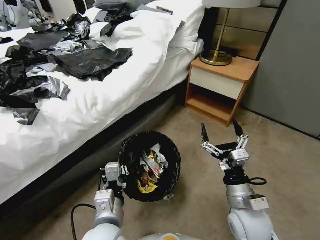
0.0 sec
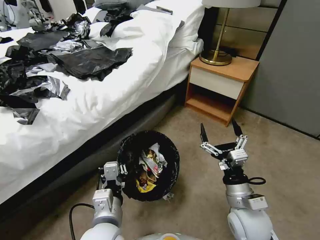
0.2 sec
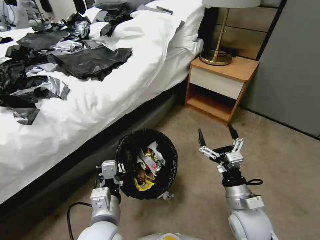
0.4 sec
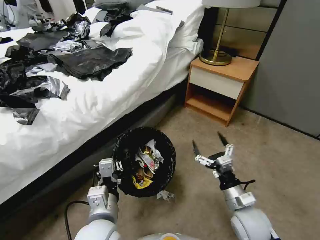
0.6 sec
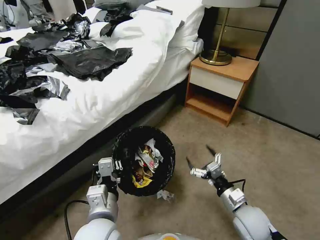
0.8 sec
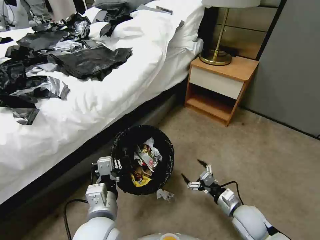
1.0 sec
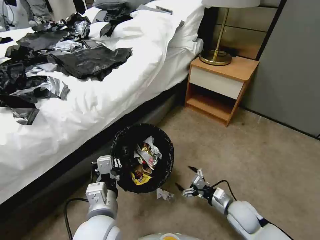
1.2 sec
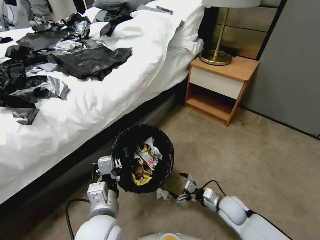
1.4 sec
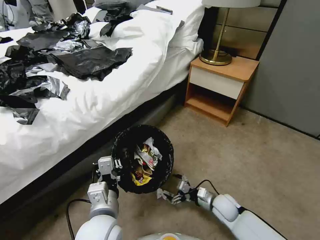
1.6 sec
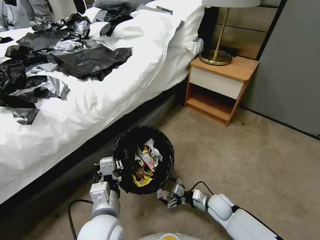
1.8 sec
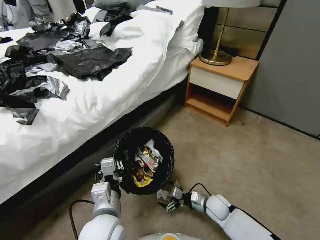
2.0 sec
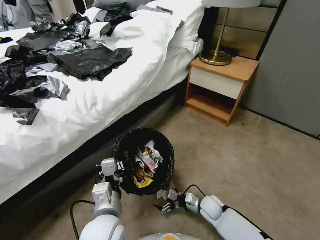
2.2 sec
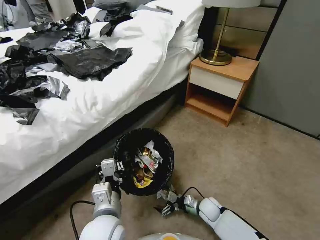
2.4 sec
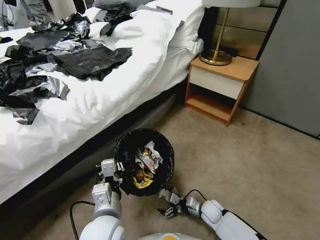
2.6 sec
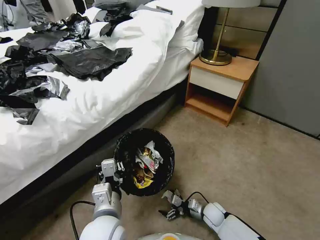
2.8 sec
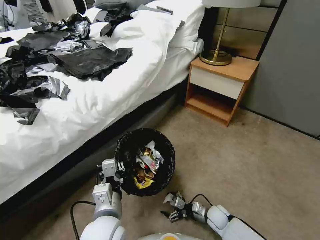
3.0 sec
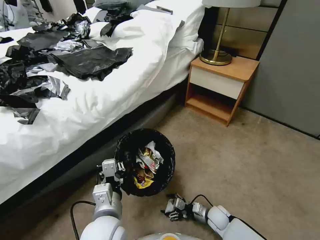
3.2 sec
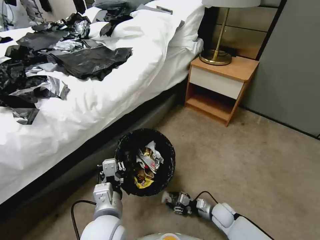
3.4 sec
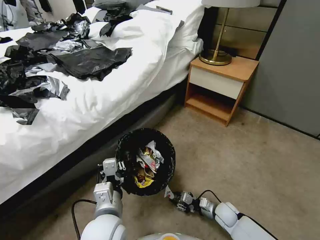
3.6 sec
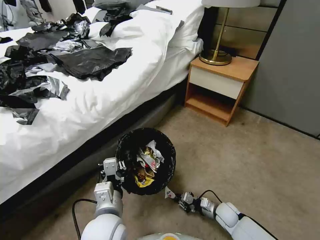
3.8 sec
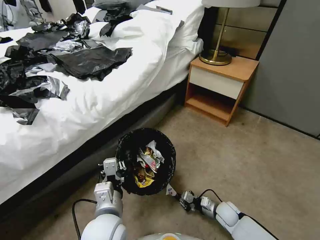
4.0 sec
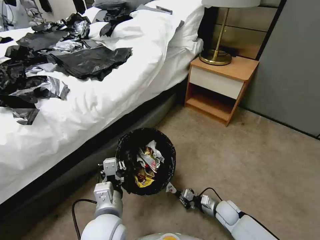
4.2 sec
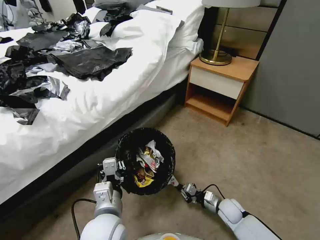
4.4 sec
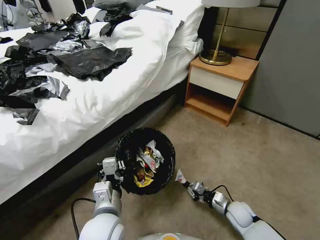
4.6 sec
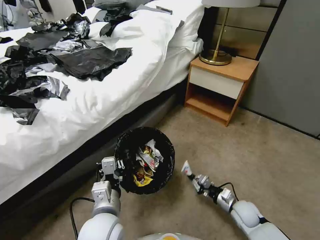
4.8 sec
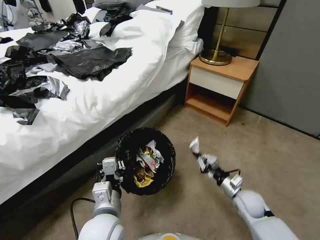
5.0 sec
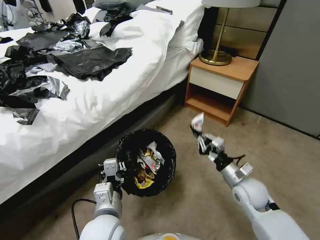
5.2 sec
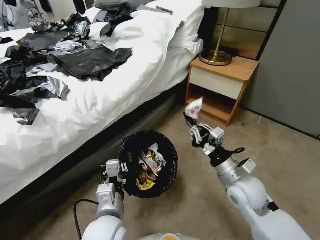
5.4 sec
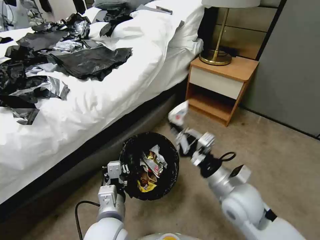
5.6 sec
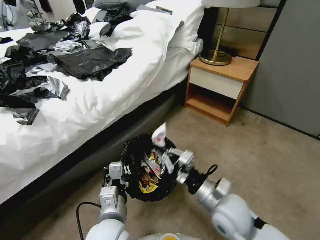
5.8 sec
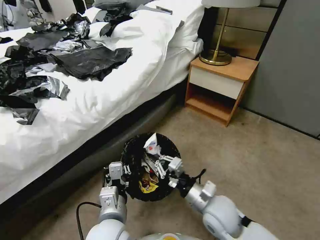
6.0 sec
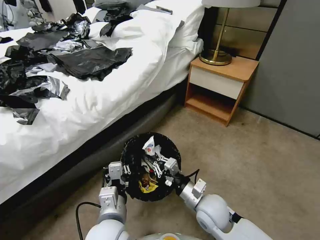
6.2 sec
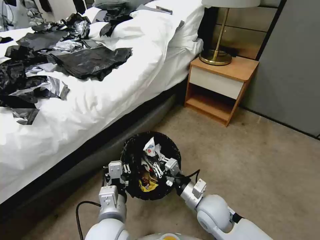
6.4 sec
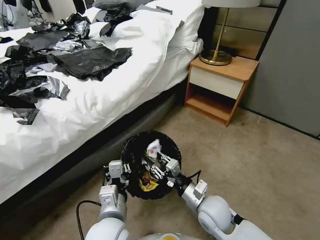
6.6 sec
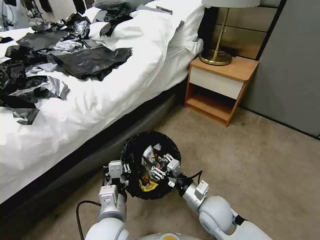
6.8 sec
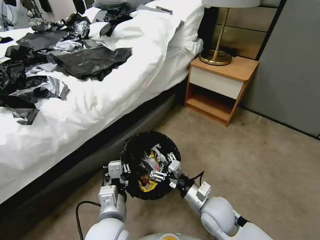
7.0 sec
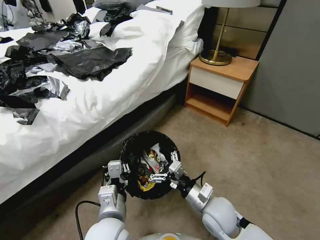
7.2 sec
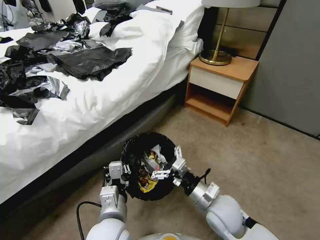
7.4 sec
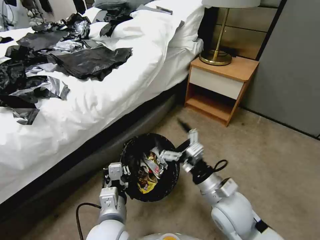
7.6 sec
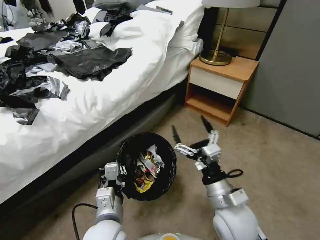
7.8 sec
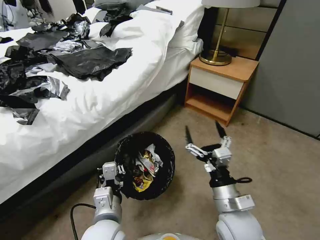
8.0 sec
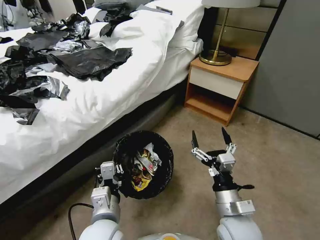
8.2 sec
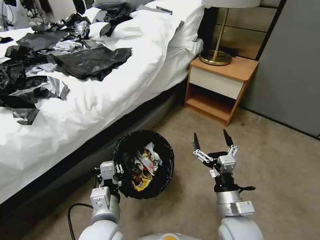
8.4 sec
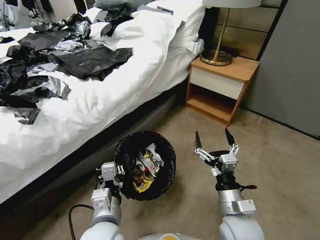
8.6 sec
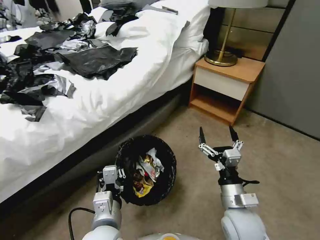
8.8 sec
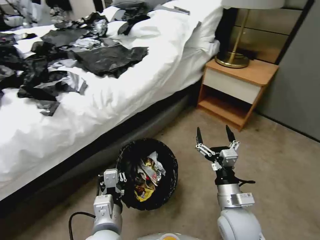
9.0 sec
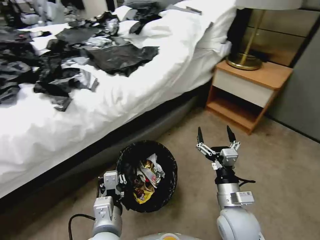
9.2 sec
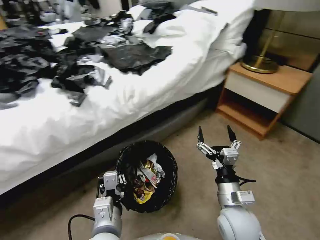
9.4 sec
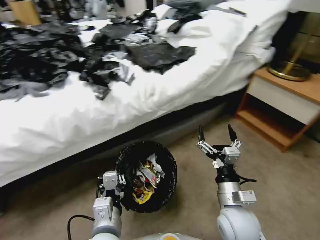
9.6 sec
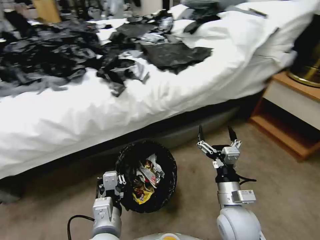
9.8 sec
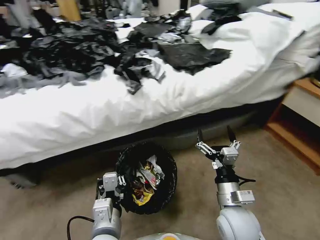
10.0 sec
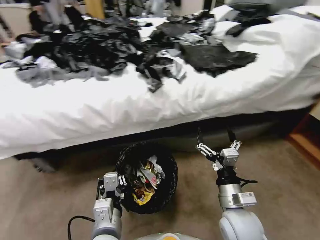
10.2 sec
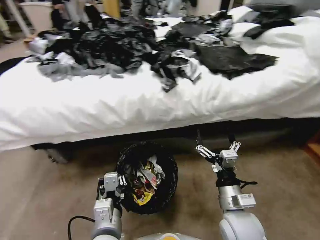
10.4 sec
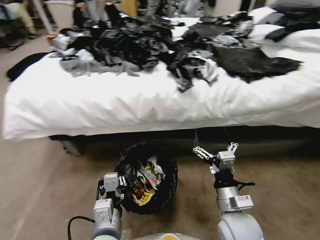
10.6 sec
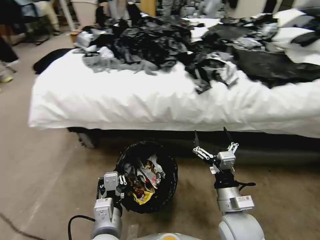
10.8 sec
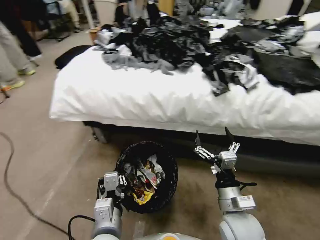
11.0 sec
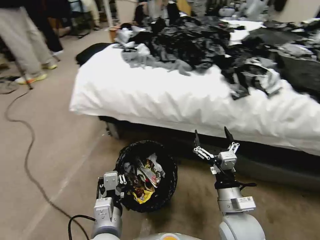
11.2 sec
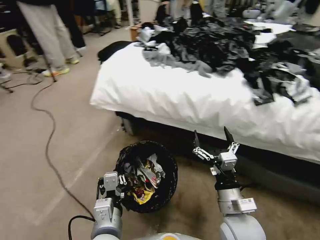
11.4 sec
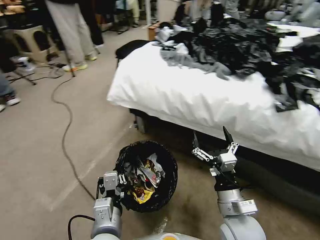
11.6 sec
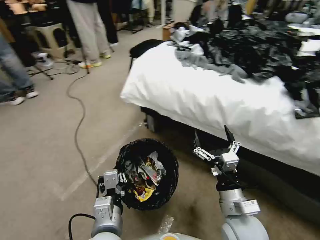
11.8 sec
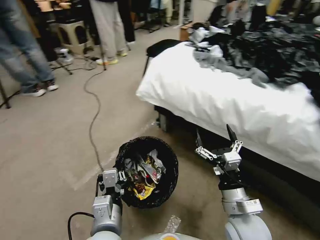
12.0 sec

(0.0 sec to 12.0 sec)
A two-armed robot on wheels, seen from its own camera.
Task of the whole recording: Pick up the trash bin, then pick up the garbage from the floor and place it into the trash bin.
0.0 sec - 1.6 sec: The right gripper shifts roughly 20 cm downward and forward.
1.6 sec - 3.0 sec: The right gripper goes some 10 cm downward.
3.0 sec - 4.4 sec: The right gripper ends up roughly 5 cm from where it was, and closes up.
4.4 sec - 6.0 sec: The right gripper moves upward and to the left, roughly 25 cm.
6.0 sec - 7.6 sec: The right gripper goes some 5 cm upward, and opens up.
7.6 sec - 9.0 sec: The right gripper ends up roughly 5 cm from where it was.

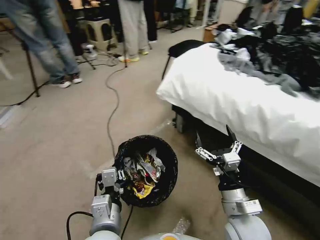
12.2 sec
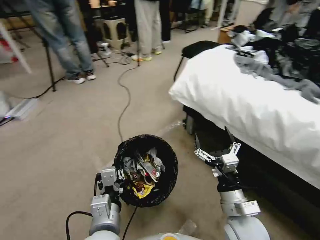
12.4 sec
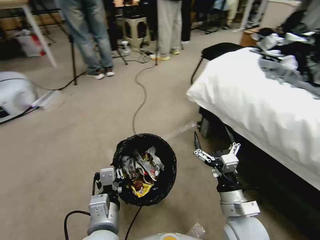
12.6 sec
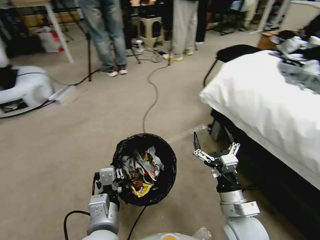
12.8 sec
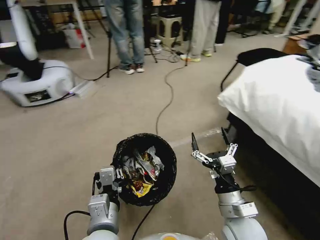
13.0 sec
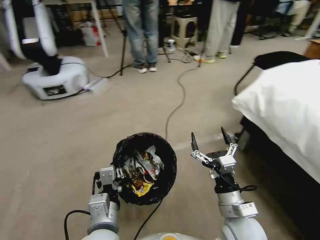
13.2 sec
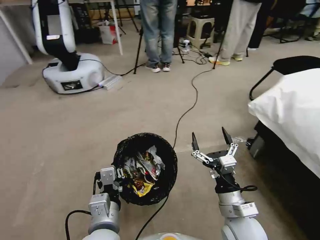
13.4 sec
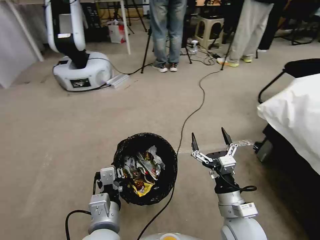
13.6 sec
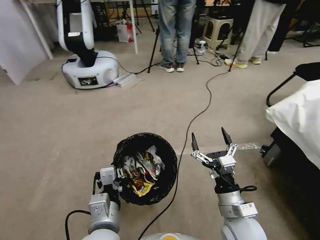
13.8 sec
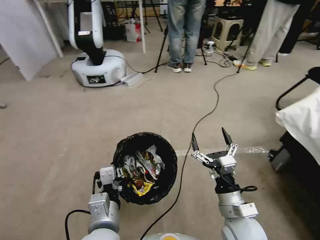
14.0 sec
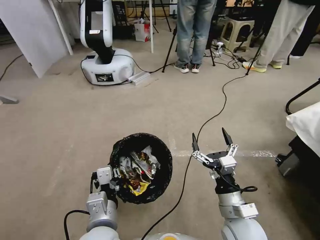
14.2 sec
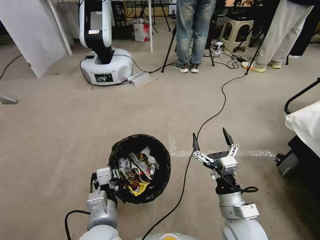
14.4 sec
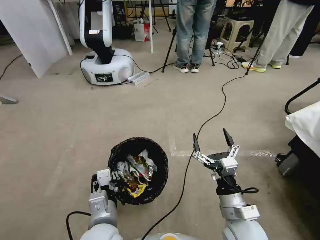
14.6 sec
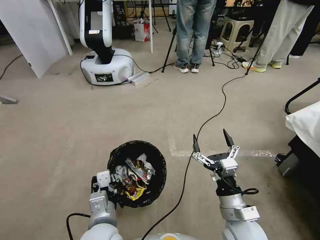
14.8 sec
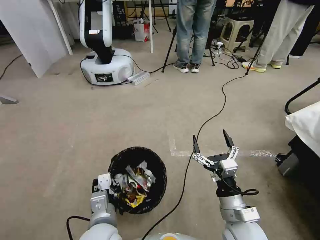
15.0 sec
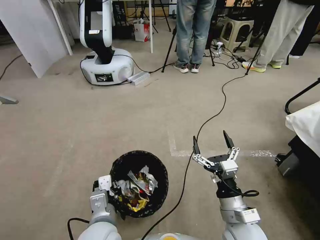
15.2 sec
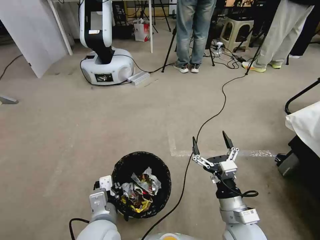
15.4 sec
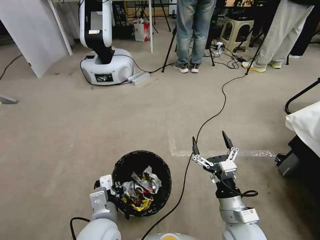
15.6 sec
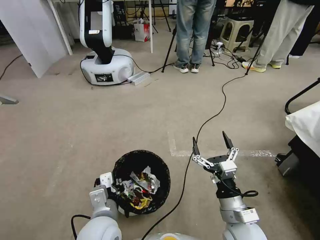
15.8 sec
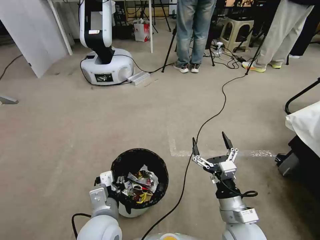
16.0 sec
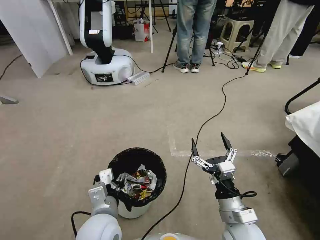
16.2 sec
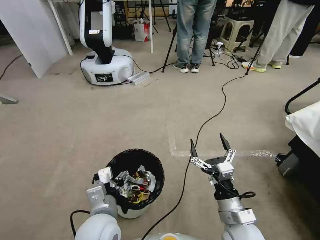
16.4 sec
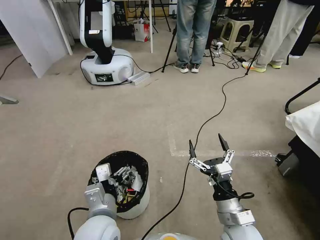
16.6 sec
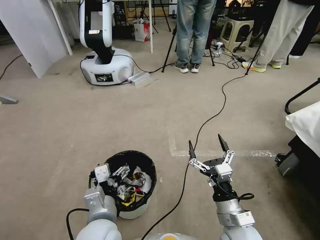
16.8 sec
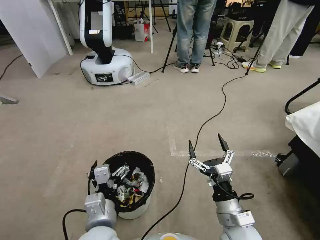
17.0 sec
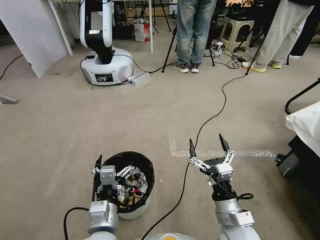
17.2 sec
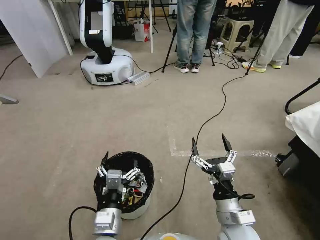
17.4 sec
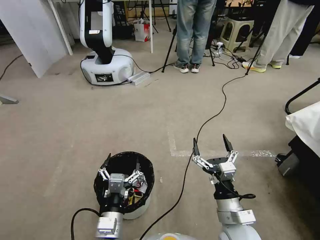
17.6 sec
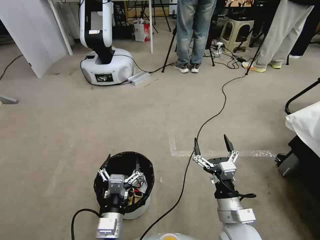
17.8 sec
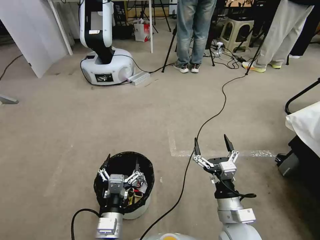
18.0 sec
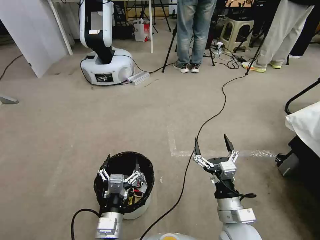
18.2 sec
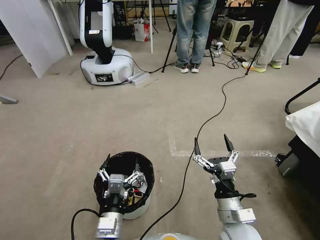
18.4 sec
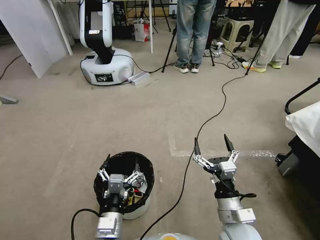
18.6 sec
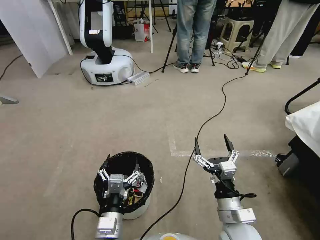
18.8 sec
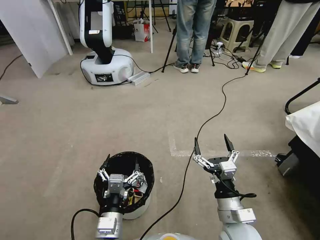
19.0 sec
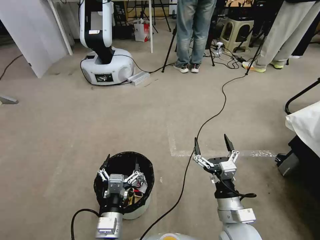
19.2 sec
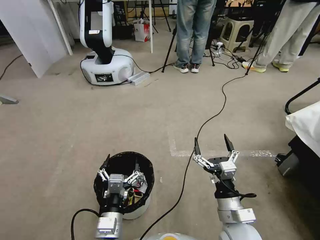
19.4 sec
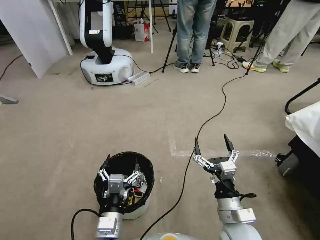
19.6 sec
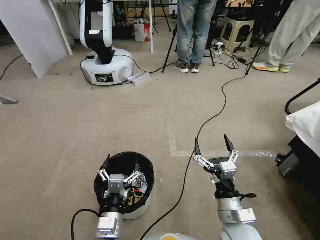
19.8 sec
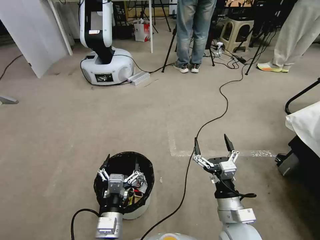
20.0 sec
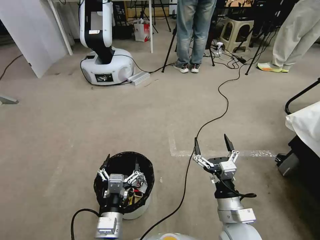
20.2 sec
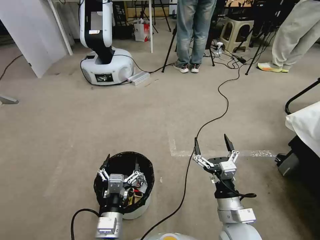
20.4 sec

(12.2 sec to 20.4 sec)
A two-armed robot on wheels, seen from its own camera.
Task of the whole recording: Pick up the trash bin, then pick up the garbage from the floor and place it into the trash bin.
15.4 sec - 17.2 sec: The left gripper opens up.
17.2 sec - 18.8 sec: The grippers move only a little.
18.8 sec - 20.4 sec: Both grippers stay about where they are.

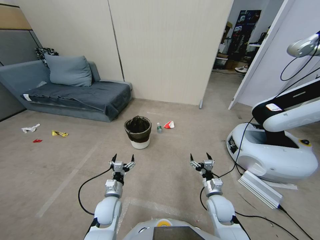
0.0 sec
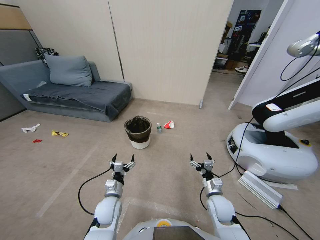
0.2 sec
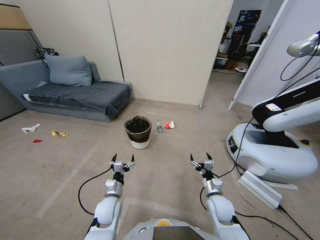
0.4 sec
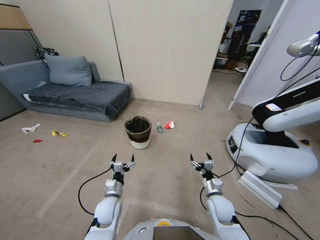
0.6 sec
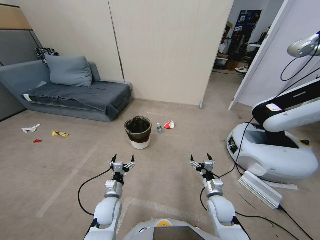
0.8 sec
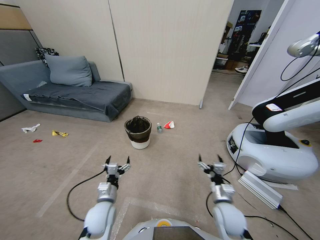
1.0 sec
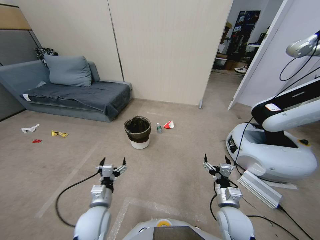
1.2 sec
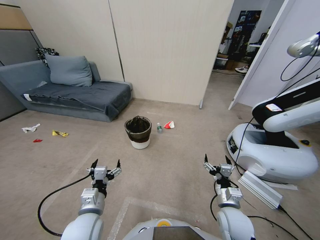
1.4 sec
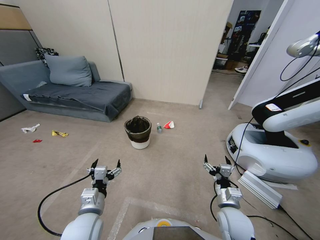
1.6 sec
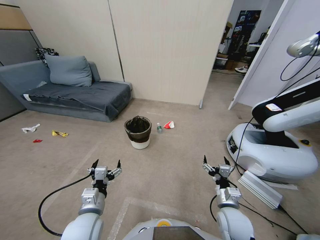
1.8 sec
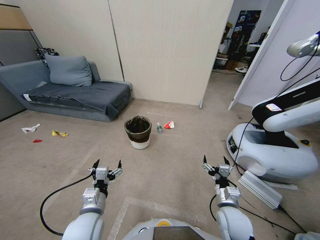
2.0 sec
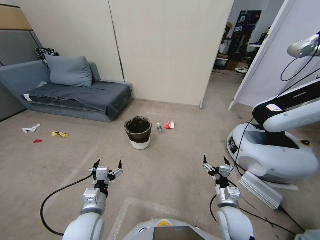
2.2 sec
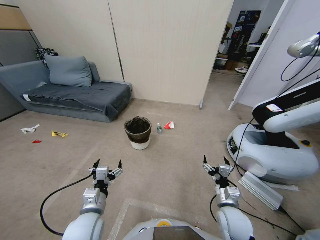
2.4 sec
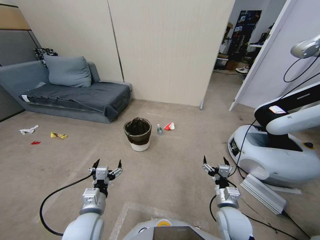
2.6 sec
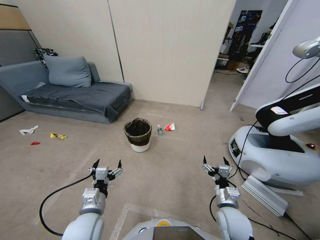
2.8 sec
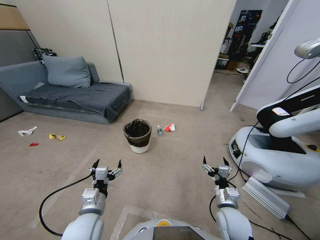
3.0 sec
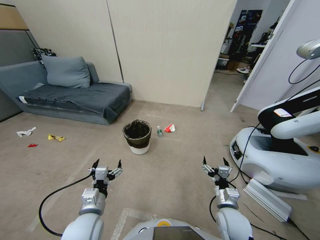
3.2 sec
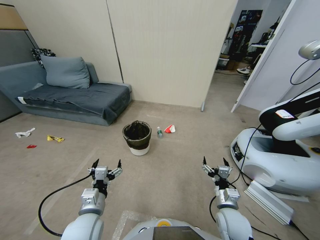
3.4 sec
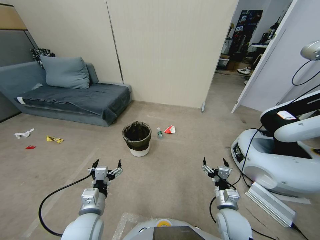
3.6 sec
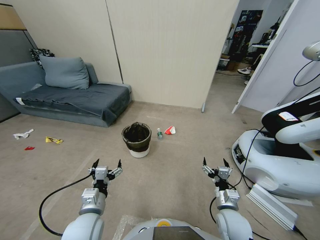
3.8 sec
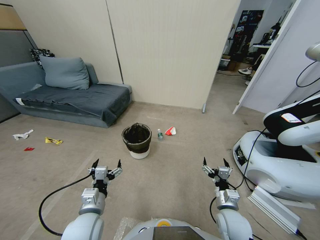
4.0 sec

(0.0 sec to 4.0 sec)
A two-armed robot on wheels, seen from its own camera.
Task of the whole recording: Pick up the trash bin, then pick up the garbage from the floor and place it into the trash bin.
1.4 sec - 2.6 sec: Both grippers stay about where they are.
